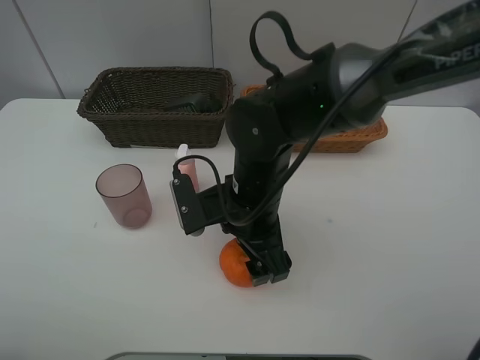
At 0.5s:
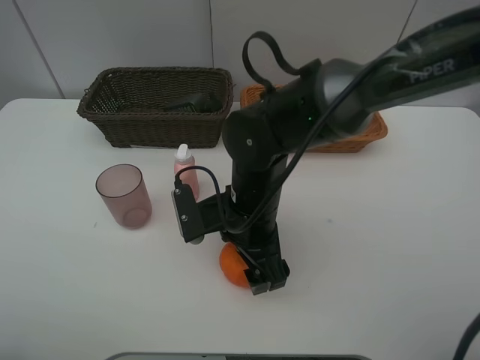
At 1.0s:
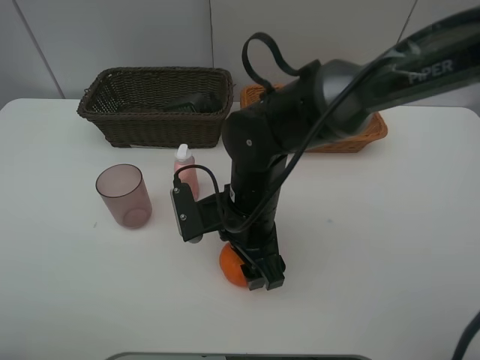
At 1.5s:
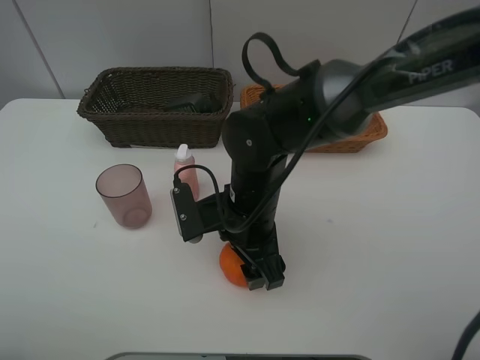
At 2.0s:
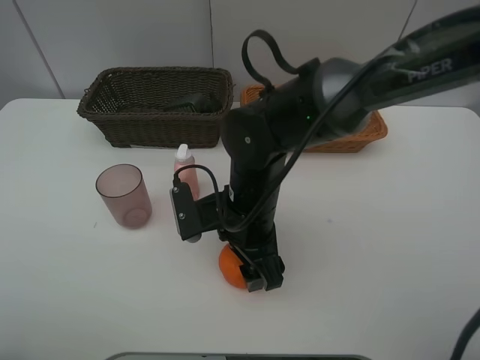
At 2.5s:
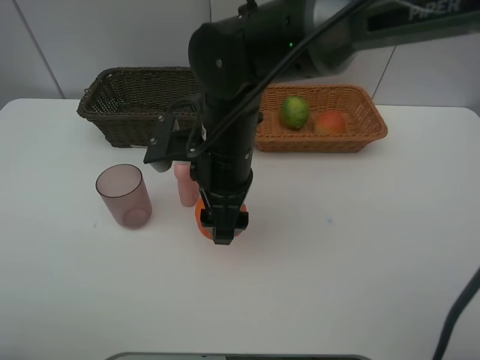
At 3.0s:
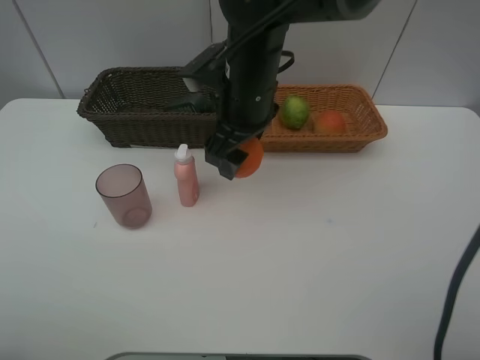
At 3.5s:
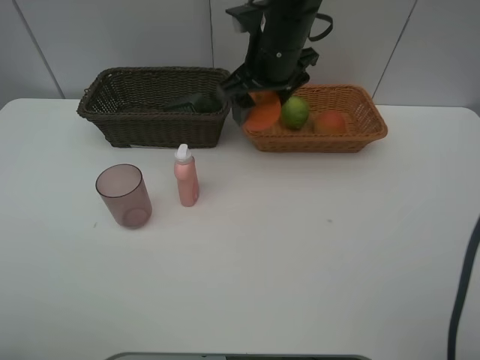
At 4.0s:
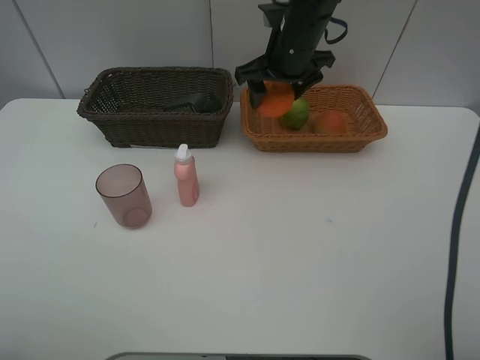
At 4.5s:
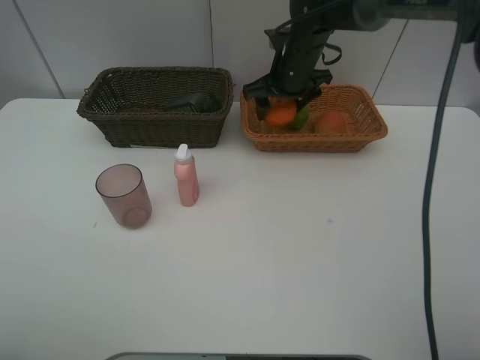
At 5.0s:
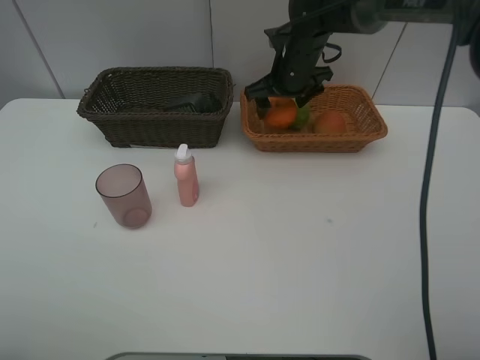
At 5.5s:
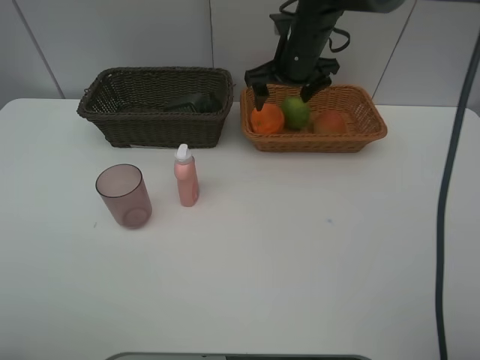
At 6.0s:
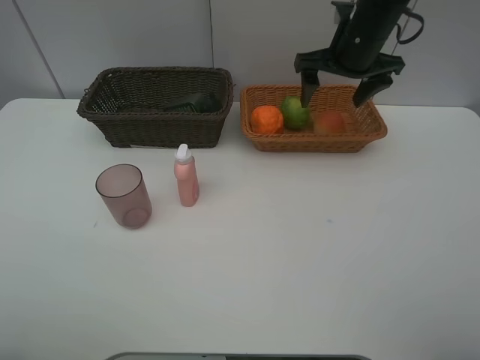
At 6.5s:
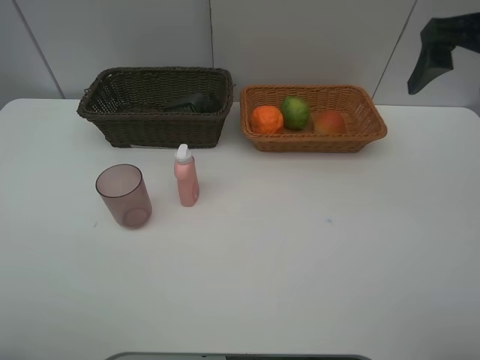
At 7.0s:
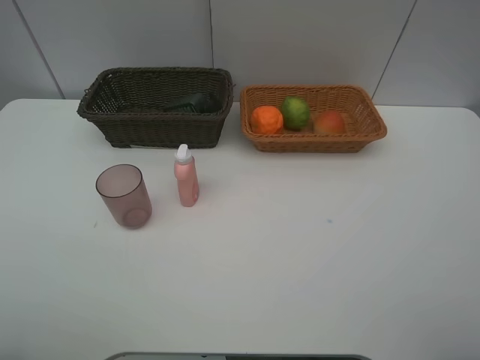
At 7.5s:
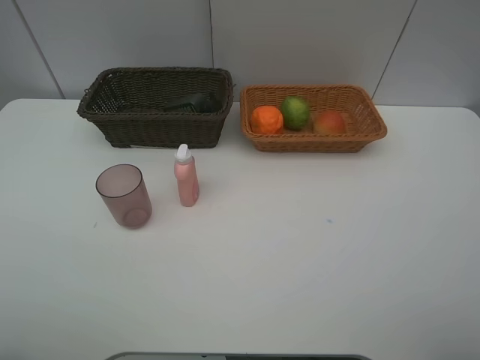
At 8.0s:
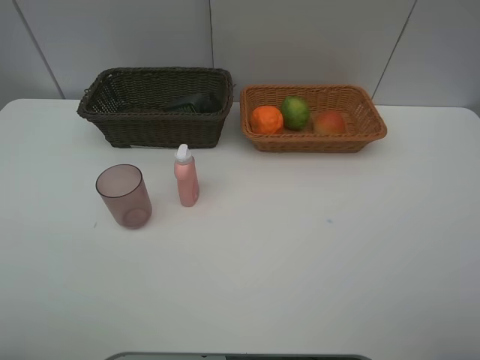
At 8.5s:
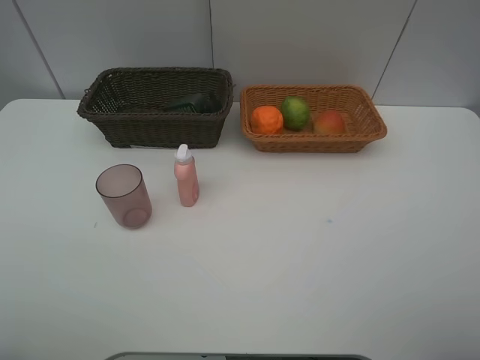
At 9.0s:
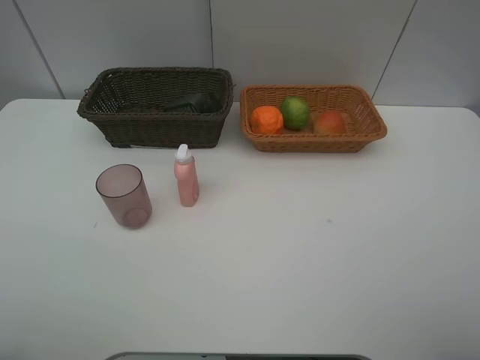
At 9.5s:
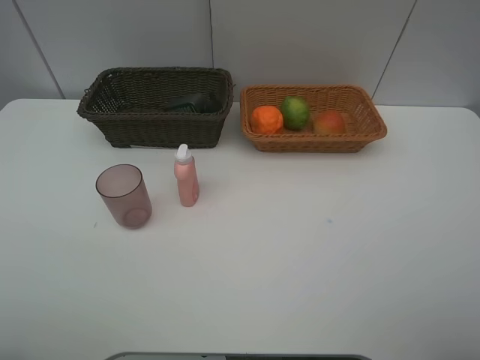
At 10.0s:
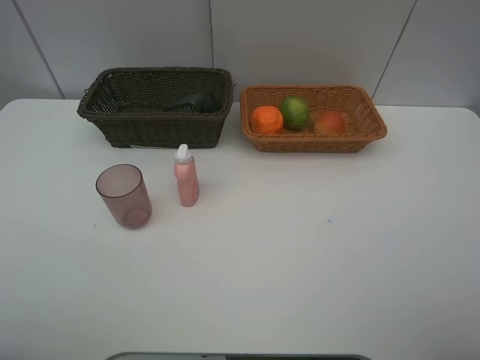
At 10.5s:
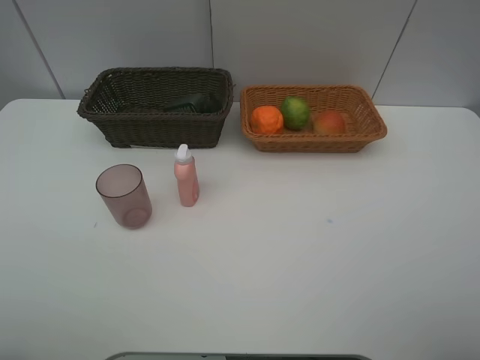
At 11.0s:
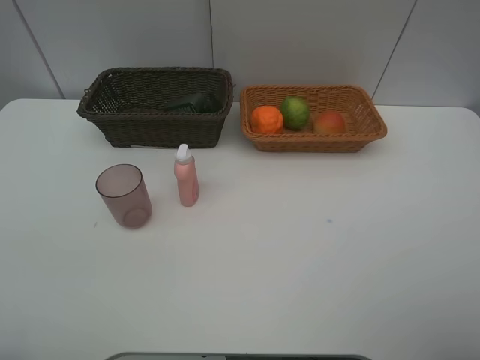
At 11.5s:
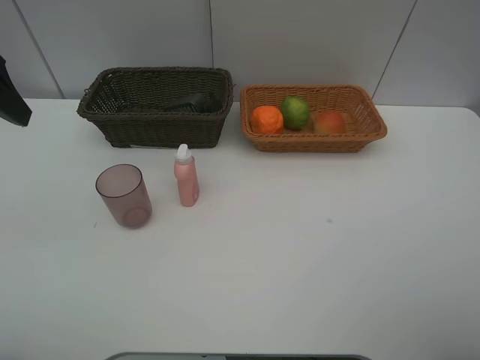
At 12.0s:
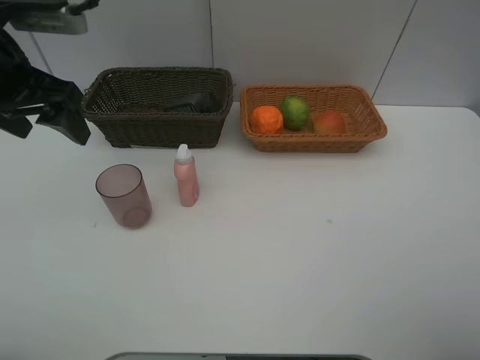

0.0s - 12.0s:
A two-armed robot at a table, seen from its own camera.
Task of the whole recording: place multiple objects separately in different baskets.
0.0s - 2.0s: The grippers stay close to where they were, moving slightly.
2.0s - 4.0s: The right gripper heads forward and upward, covering about 25 cm.
4.0s - 6.0s: The right gripper travels to the right by about 10 cm.
6.0s - 8.0s: The right gripper travels backward by approximately 40 cm.
10.0s - 12.0s: The left gripper is displaced forward by about 30 cm.

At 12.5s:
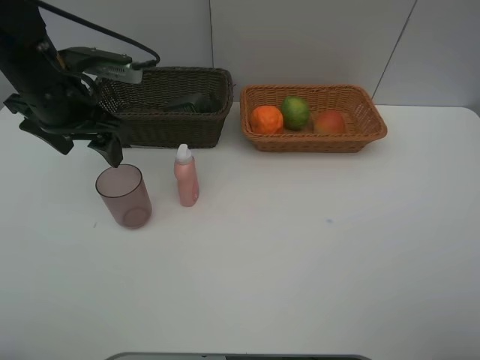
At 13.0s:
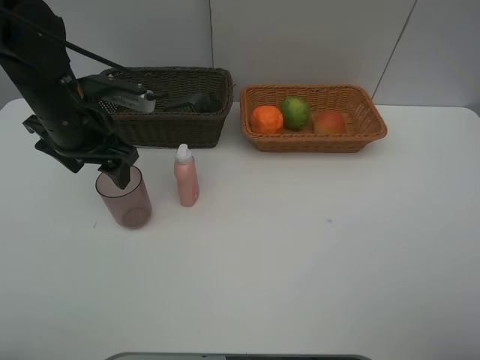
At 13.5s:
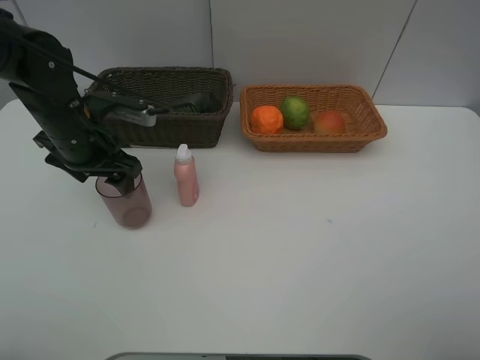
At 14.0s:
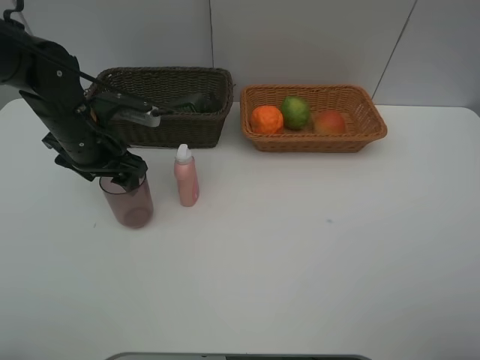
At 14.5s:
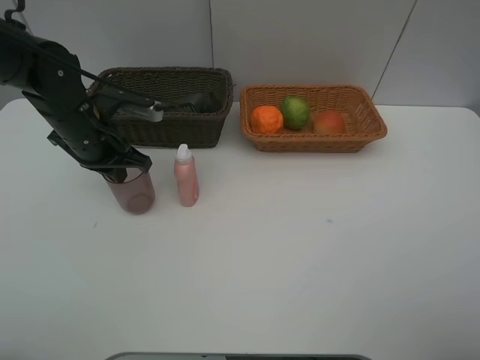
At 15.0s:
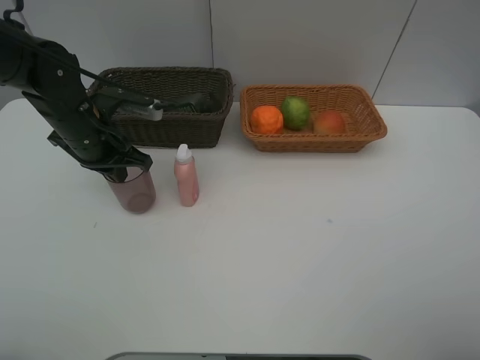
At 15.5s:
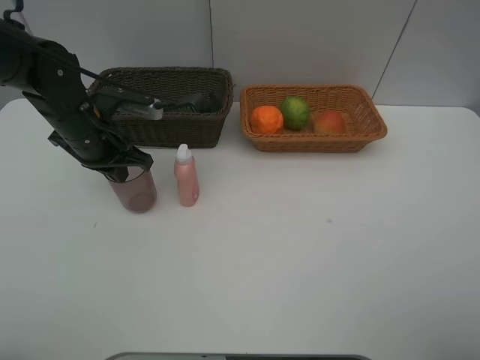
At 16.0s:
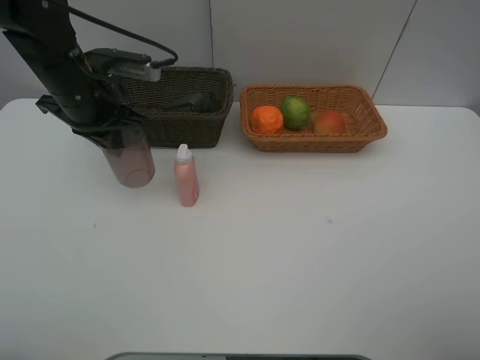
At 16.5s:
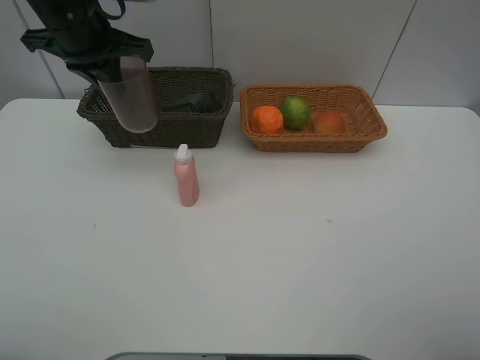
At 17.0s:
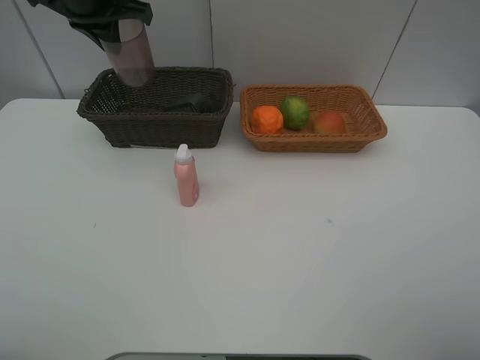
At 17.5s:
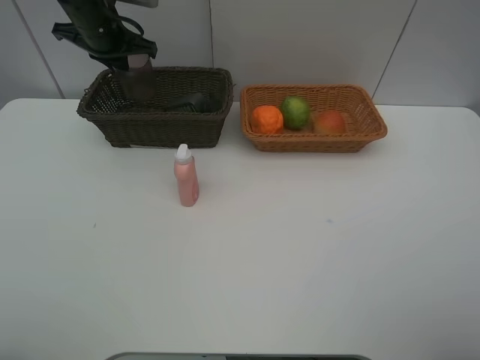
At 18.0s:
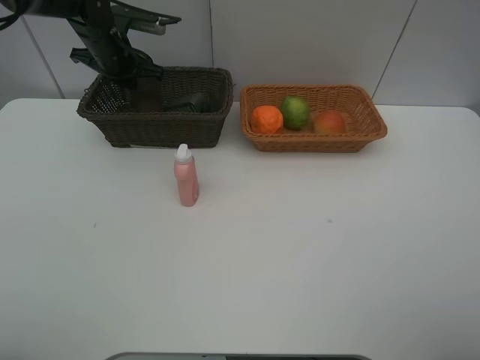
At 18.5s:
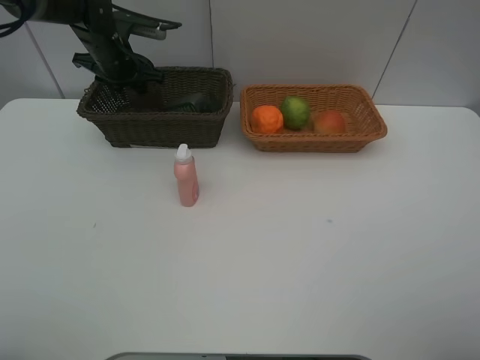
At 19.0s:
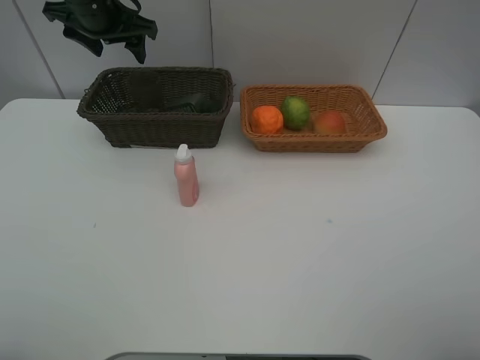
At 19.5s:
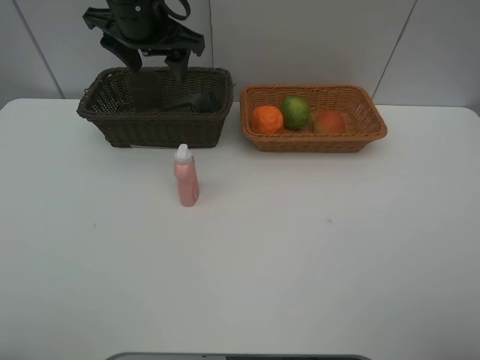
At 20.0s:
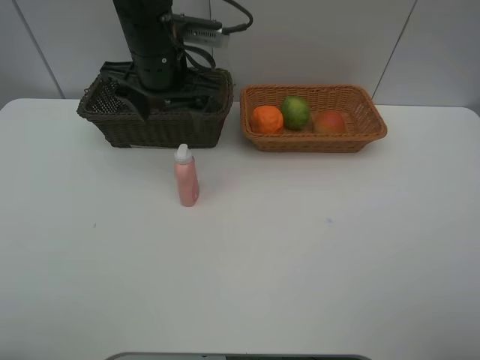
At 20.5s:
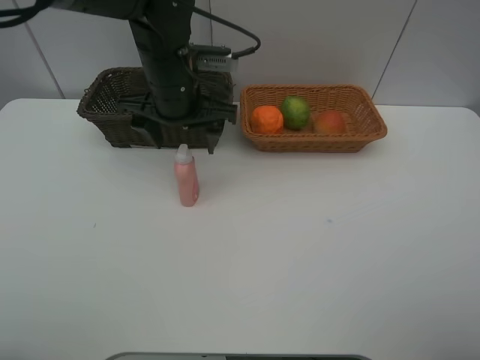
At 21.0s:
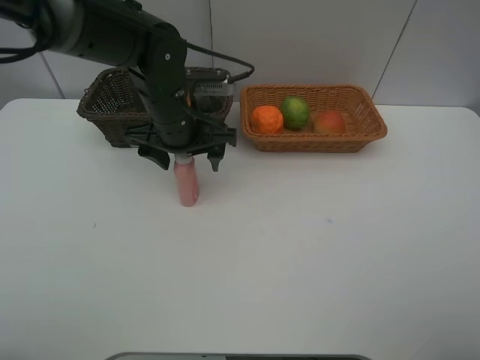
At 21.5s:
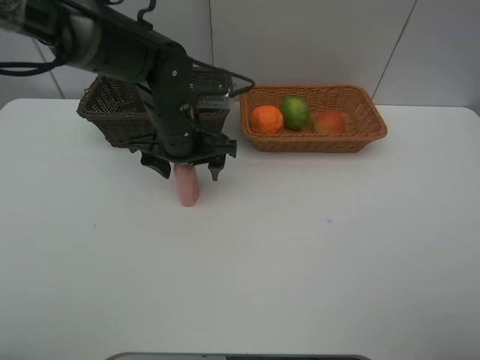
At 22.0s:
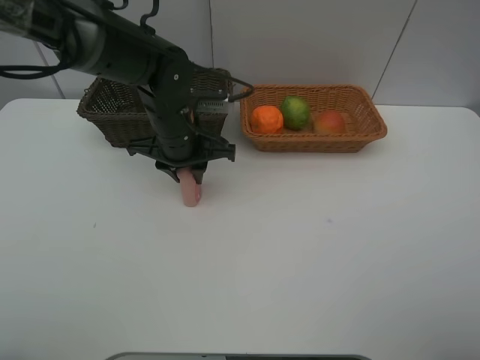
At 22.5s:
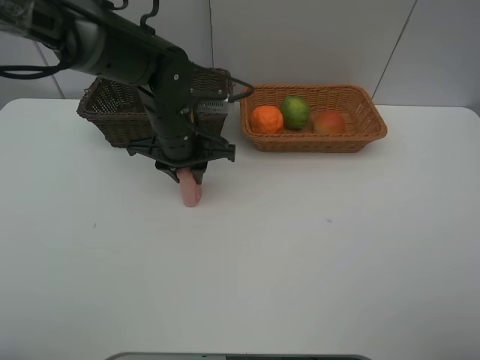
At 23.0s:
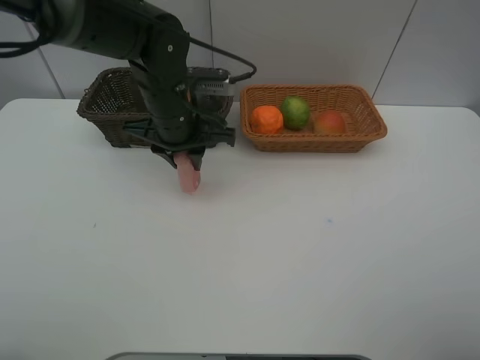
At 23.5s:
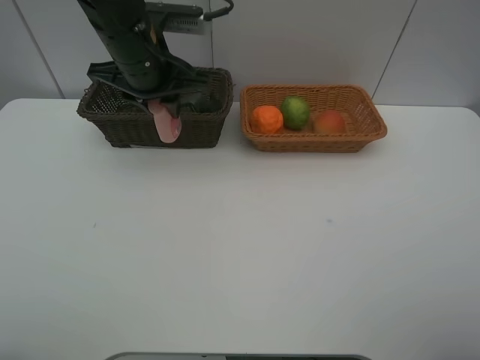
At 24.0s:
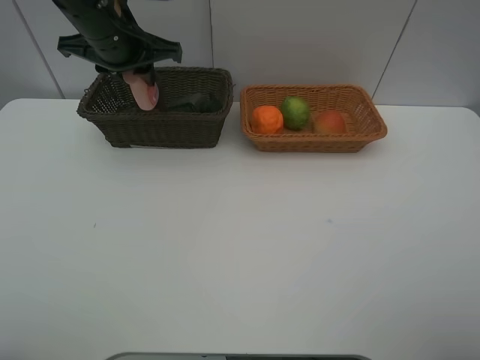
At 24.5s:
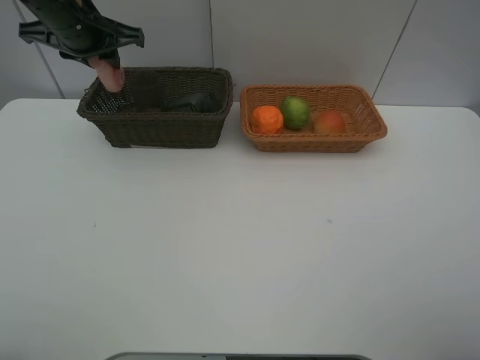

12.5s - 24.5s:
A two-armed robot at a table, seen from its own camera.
Task of the whole recording: place multiple objects separately in different baskets.
12.5s - 14.5s: The left gripper travels downward by some 5 cm, and closes up.
14.5s - 16.5s: The left gripper travels upward by about 15 cm.
16.5s - 18.5s: The left gripper heads forward and downward, covering about 15 cm, and opens.
18.5s - 20.5s: The left gripper heads backward and to the right, covering about 20 cm.
20.5s - 22.5s: The left gripper is displaced downward by approximately 5 cm, and closes its fingers.
22.5s - 24.5s: The left gripper shifts about 20 cm to the left, upward and forward.

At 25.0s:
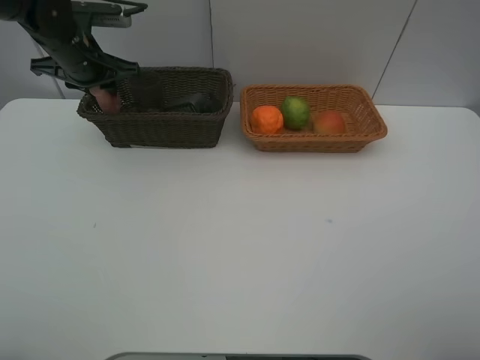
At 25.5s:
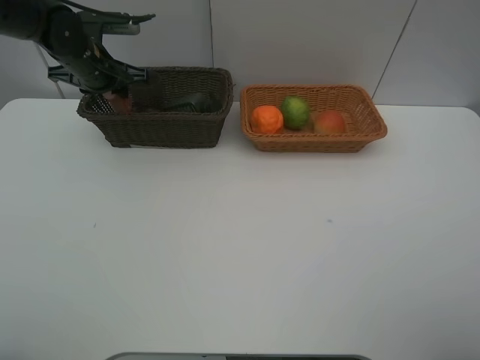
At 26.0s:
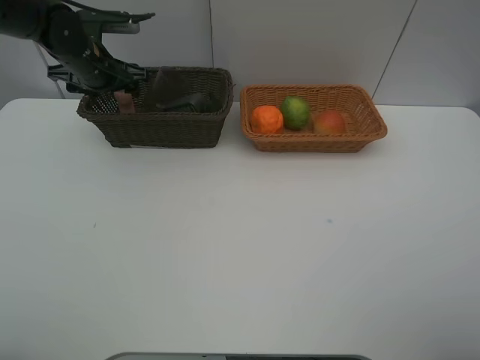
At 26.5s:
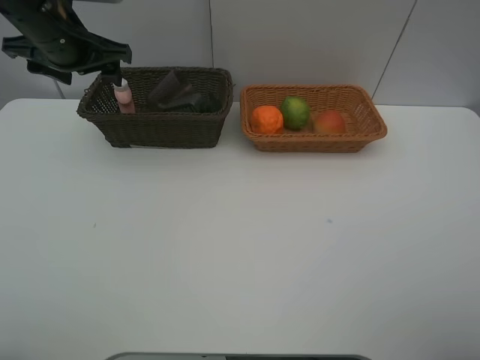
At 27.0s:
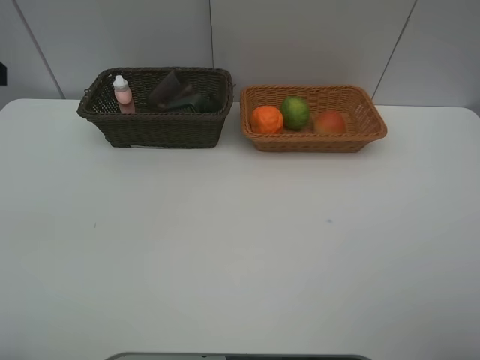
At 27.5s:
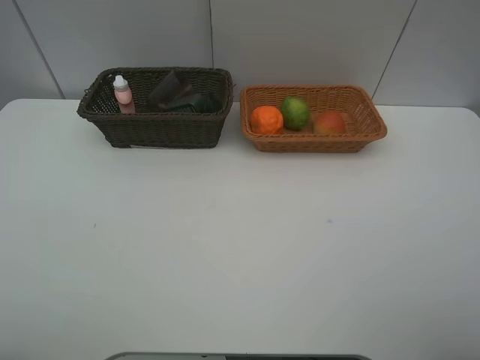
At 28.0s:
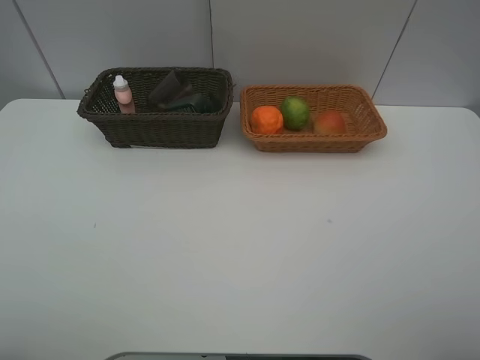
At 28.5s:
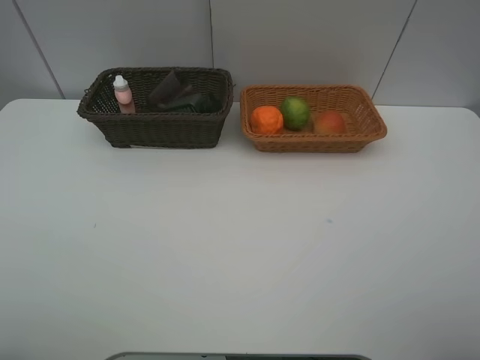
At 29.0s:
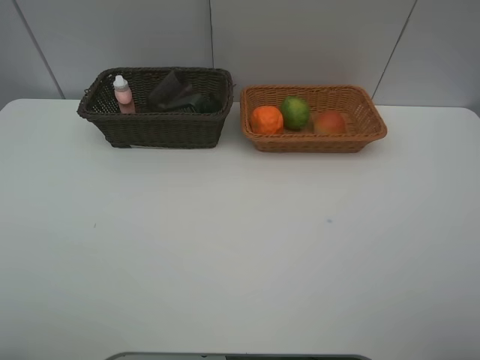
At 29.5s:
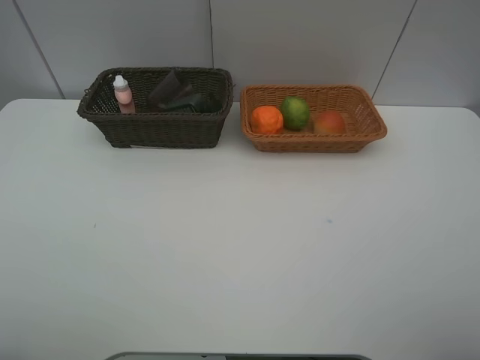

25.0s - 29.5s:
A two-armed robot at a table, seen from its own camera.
Task of the whole recording: place multiple objects separately in different baskets.
25.0s - 27.0s: The left gripper moves backward and upward, about 30 cm, and opens its fingers.
